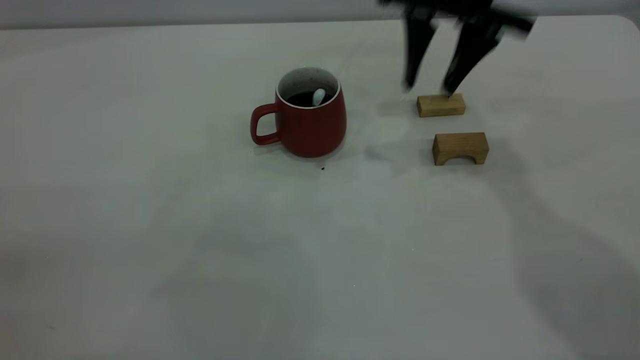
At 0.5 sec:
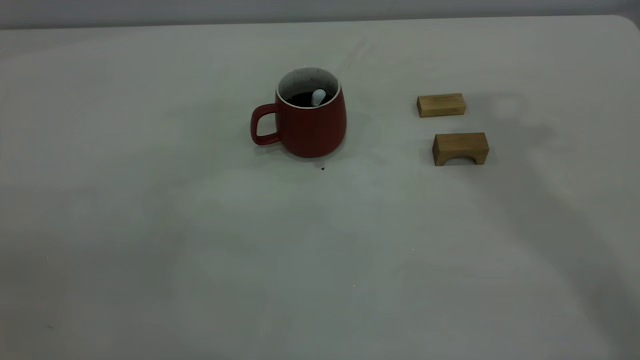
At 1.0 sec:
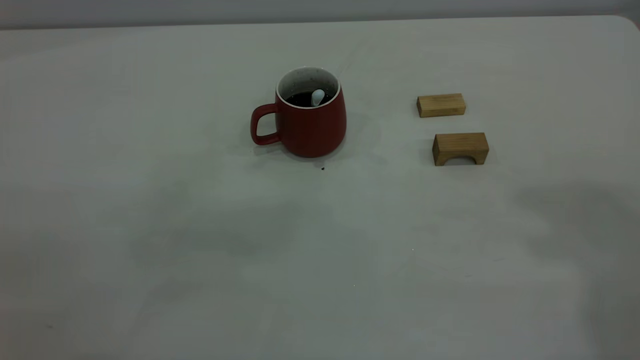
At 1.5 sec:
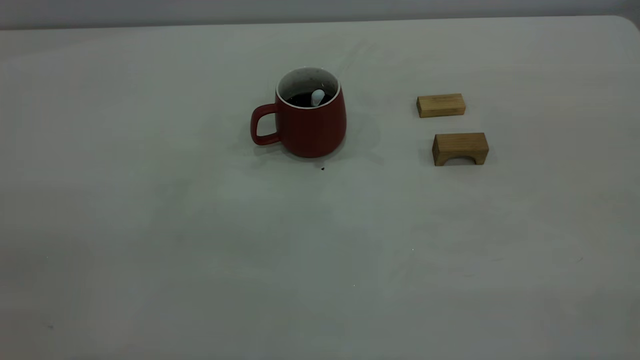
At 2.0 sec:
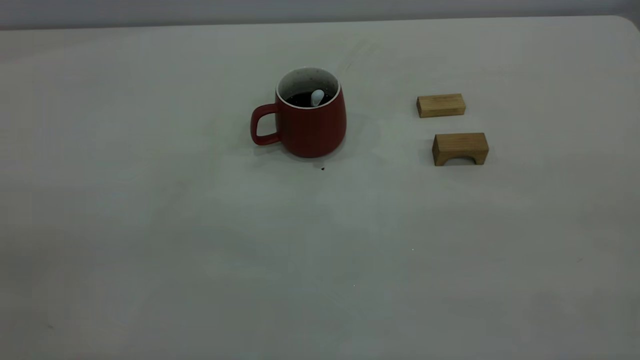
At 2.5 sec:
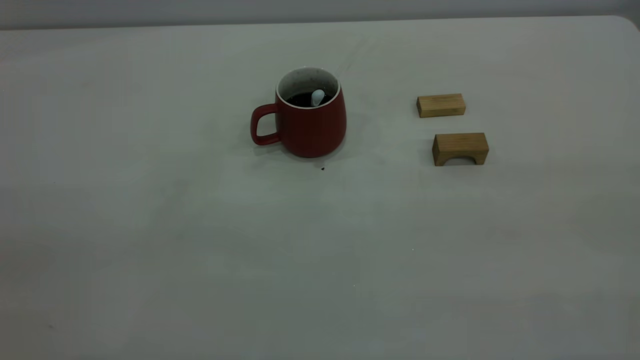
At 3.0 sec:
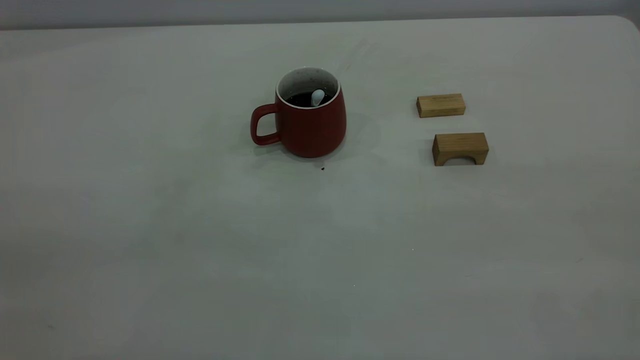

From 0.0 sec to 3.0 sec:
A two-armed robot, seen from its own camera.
From 0.0 sec to 1.5 sec: The right gripper heads backward, upward and to the right, covering about 50 cm.
